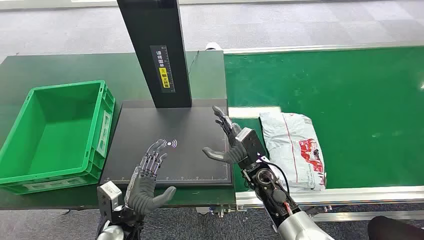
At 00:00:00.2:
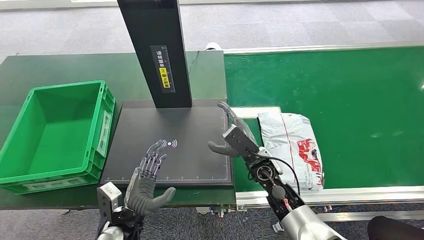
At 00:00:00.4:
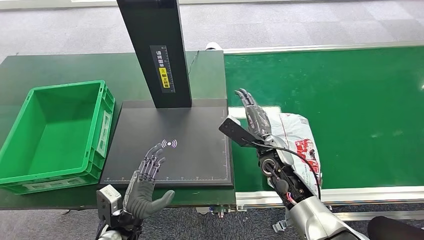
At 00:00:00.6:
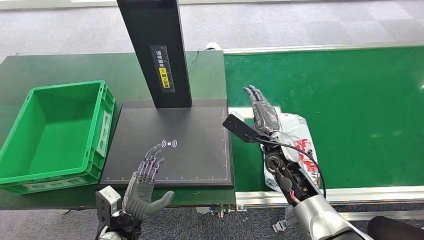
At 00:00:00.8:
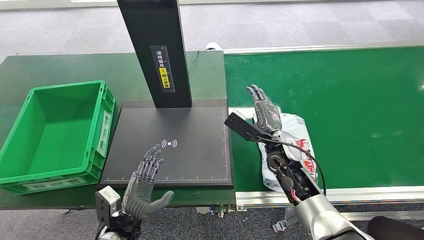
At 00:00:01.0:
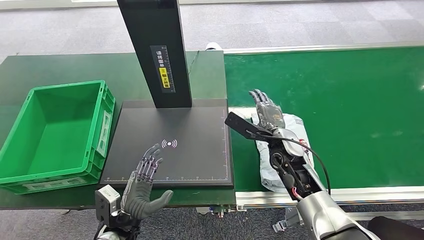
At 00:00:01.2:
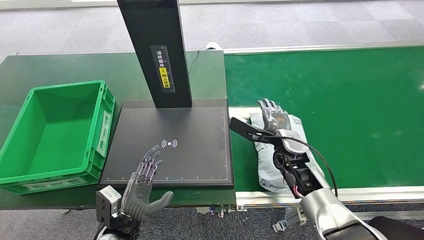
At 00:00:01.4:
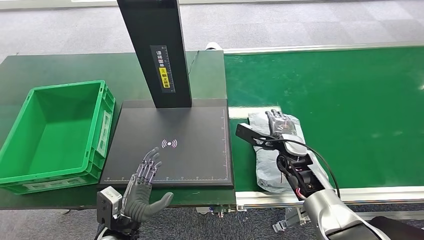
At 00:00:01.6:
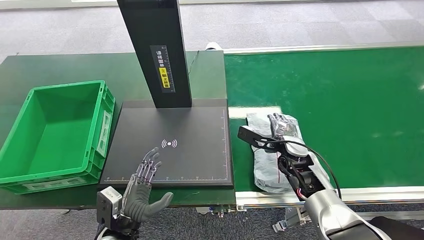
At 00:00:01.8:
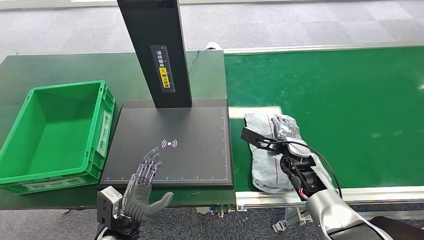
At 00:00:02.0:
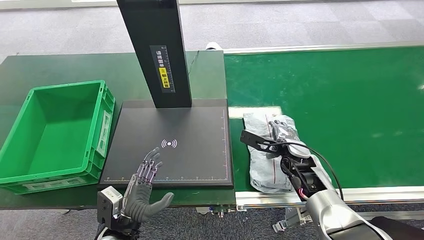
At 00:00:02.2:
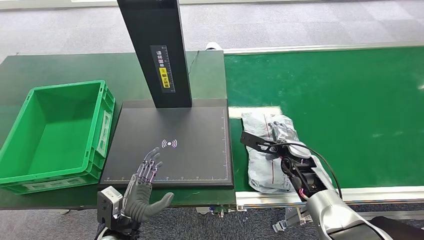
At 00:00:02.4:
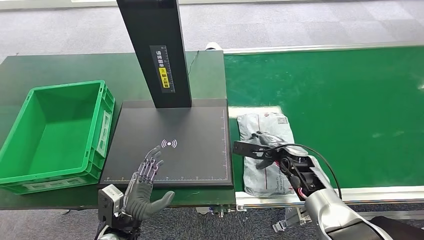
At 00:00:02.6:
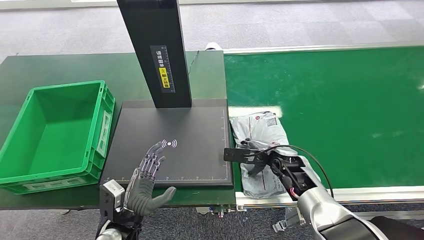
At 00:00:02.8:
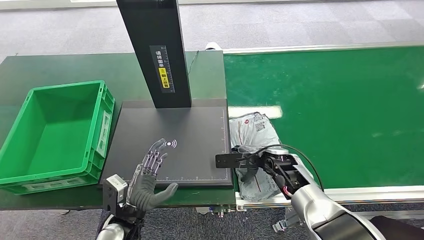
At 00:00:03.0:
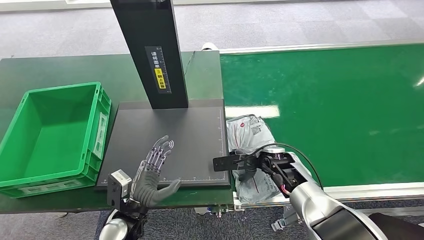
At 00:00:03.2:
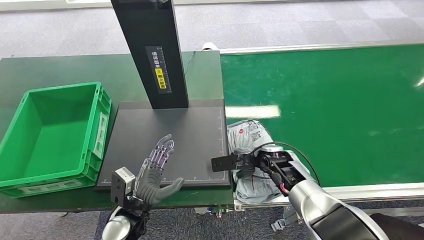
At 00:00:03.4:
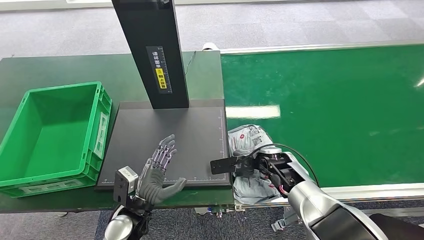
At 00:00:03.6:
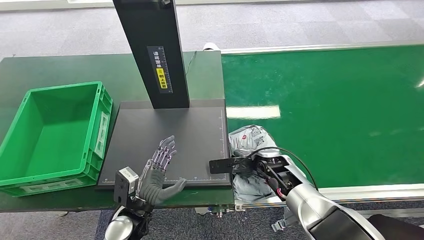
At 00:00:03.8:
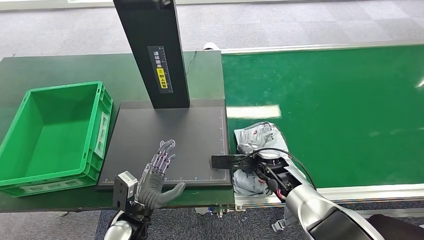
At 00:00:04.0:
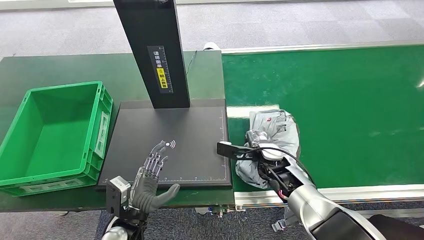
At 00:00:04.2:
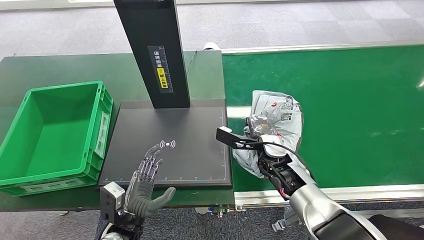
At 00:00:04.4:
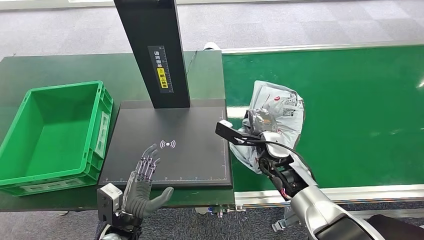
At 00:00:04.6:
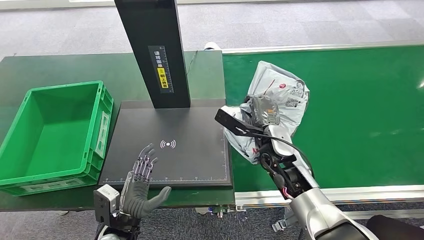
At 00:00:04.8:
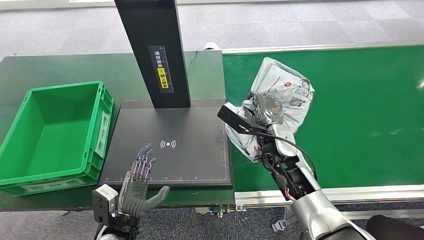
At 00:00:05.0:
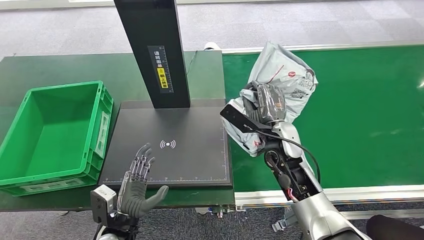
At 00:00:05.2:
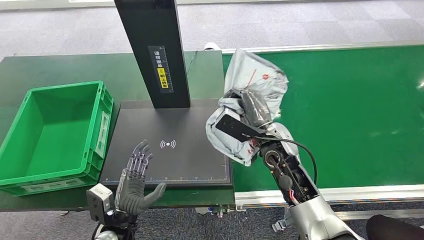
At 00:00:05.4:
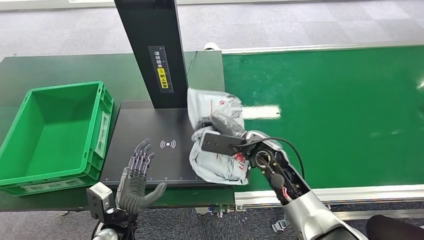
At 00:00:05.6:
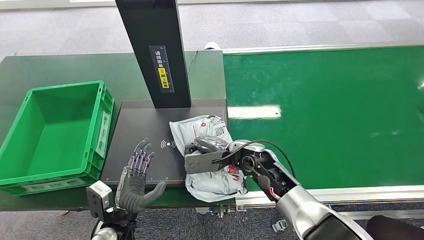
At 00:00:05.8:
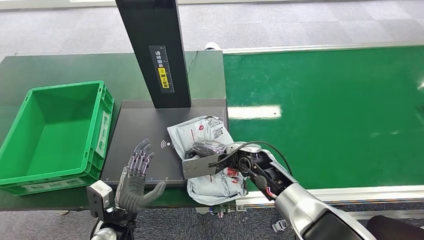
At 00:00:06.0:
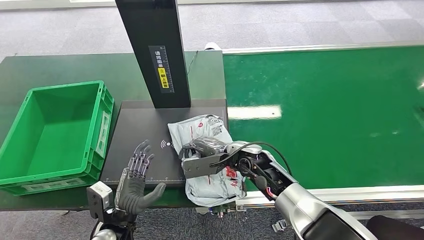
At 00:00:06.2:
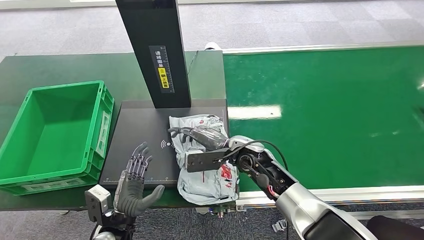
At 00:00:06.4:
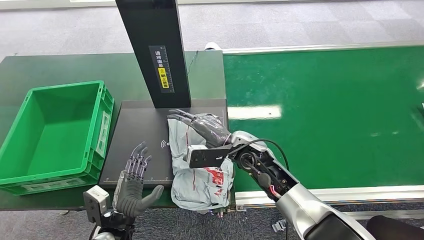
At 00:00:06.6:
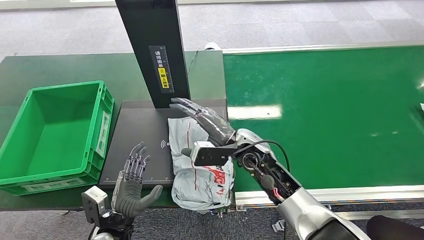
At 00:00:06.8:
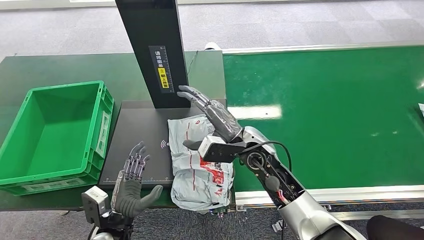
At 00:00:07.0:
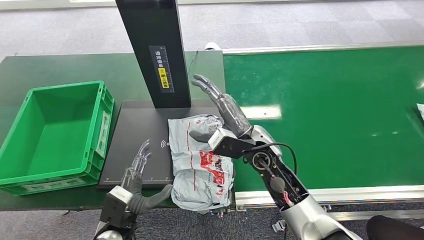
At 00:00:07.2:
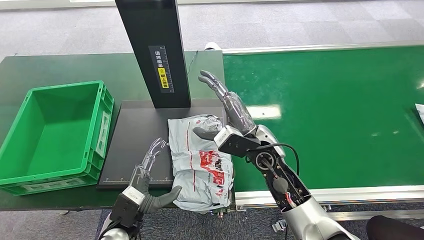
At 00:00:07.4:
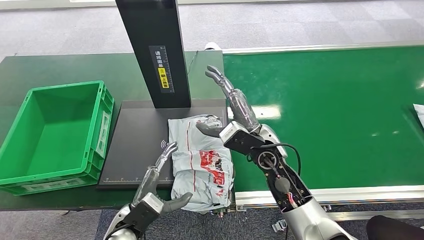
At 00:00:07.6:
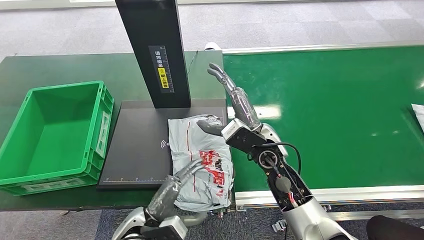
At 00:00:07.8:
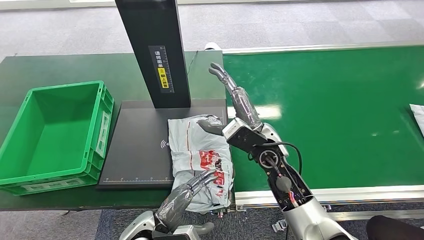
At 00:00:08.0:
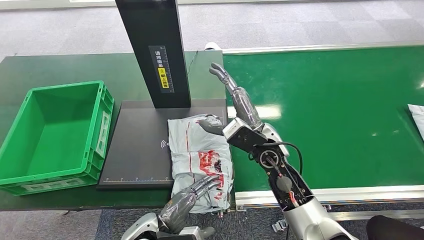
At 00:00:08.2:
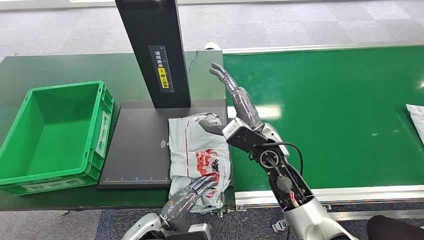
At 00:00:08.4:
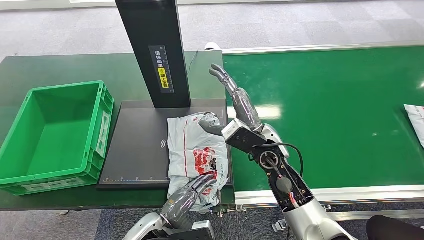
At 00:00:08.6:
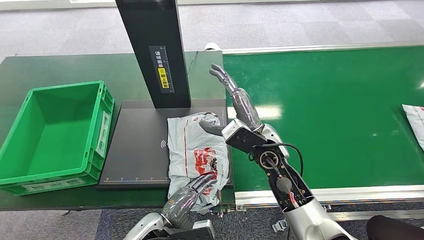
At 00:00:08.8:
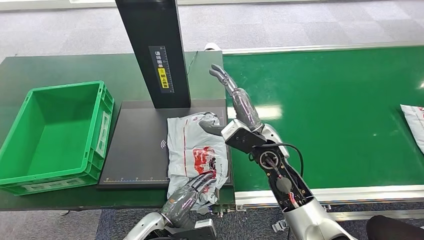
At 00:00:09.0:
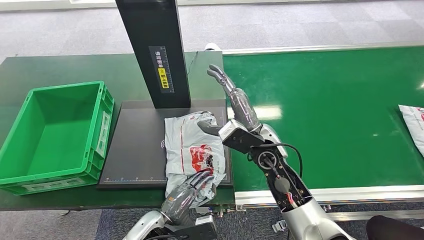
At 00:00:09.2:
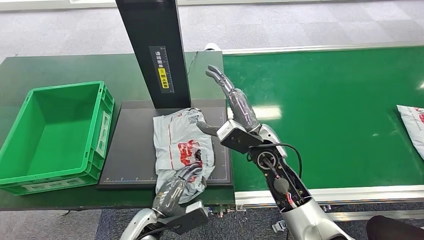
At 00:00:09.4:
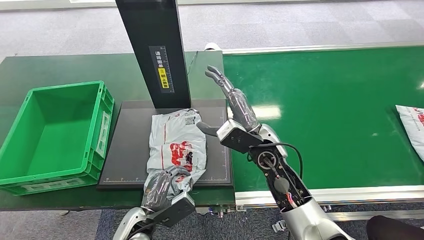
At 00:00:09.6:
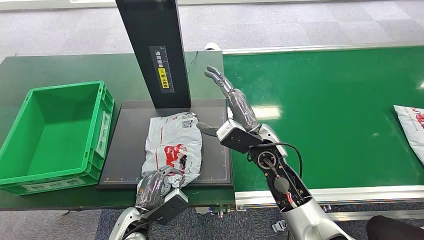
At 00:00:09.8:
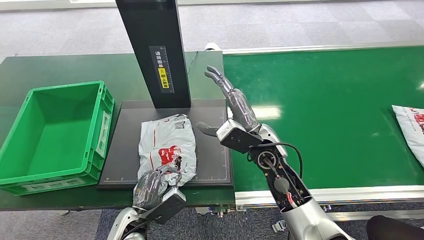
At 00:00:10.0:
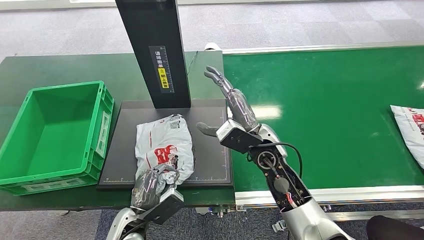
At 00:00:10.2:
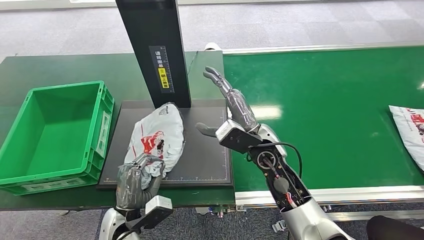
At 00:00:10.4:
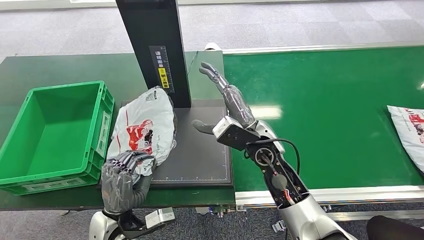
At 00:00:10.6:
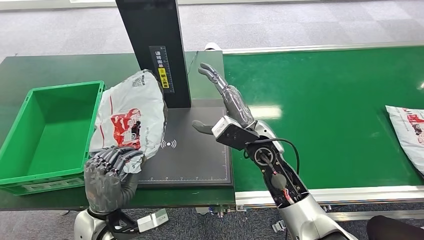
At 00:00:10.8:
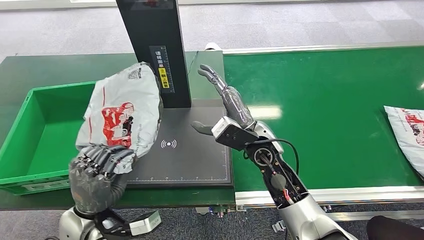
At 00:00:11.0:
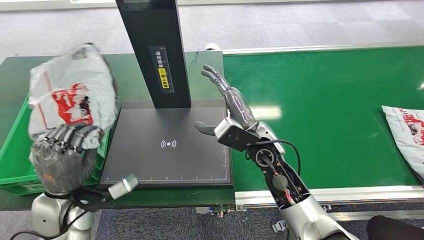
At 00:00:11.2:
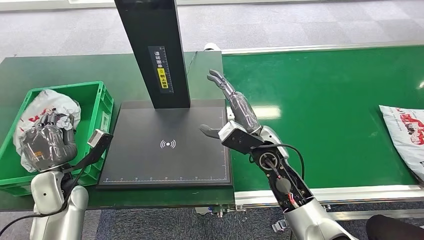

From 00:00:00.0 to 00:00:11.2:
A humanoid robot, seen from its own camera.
Step, from 00:00:00.0 to 00:00:04.2: Pick up the package from the conveyor belt.
Step, from 00:00:04.4 to 00:00:07.2: Place the package onto the inbound machine.
Step, from 00:00:07.4 to 00:00:10.4: Pick up the package from the inbound machine.
From 00:00:03.2 to 00:00:04.8: The right hand moves upward, about 5 cm.
From 00:00:04.8 to 00:00:06.4: The right hand heads to the left, covering about 5 cm.
From 00:00:06.4 to 00:00:08.0: The left hand moves to the right, approximately 5 cm.
From 00:00:09.6 to 00:00:11.2: The left hand shifts about 20 cm to the left, upward and forward.

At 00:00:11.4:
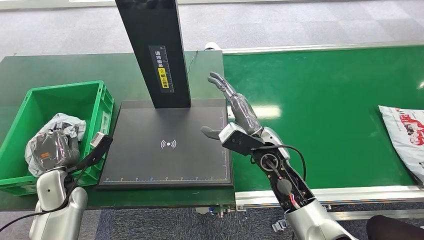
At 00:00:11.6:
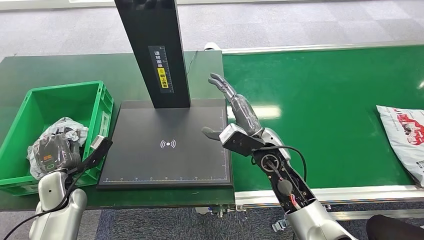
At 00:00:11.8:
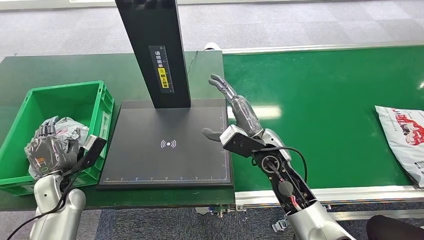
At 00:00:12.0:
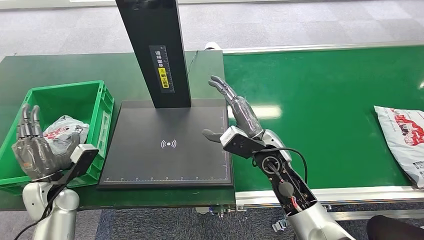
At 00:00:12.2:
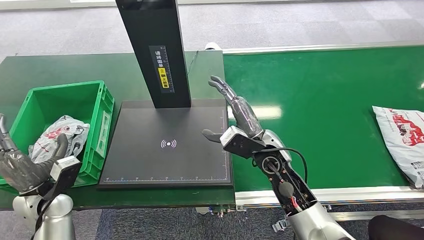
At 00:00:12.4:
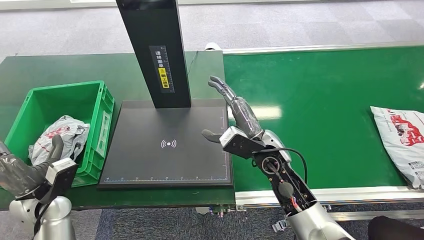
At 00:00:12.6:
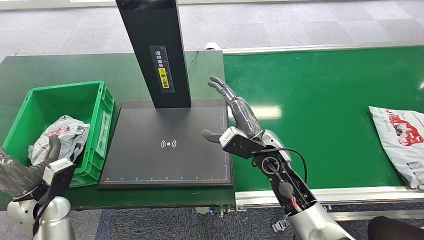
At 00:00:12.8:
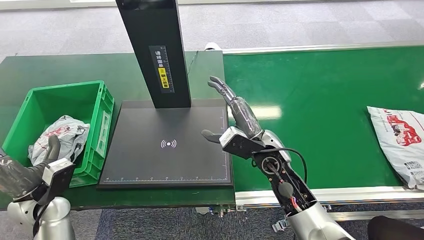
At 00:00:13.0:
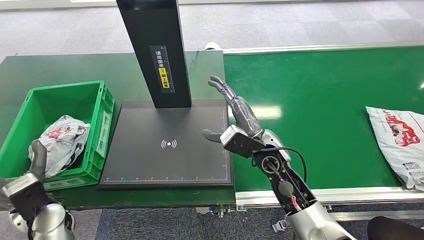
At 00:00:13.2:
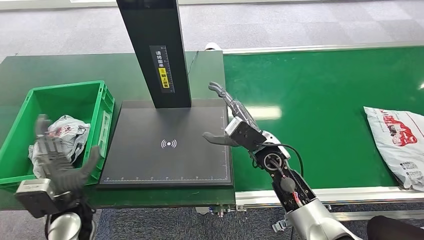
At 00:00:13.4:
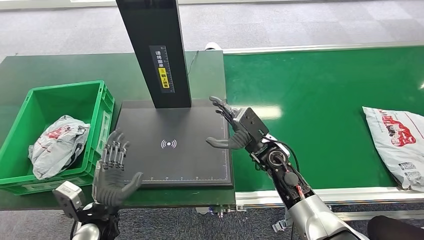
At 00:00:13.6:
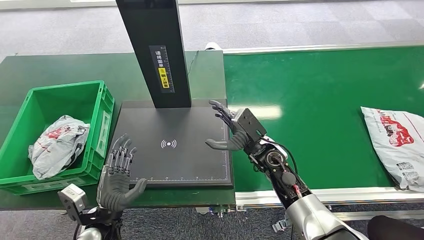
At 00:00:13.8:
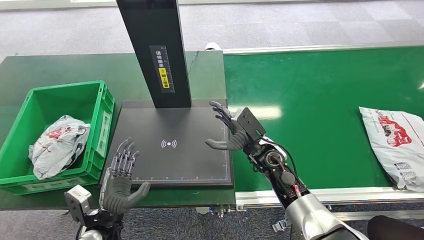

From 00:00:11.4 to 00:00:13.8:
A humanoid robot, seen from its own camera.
Step, from 00:00:11.4 to 00:00:13.8: Place the package into the parcel locker.
From 00:00:12.6 to 00:00:13.8: The left hand is displaced to the right, downward and backward by about 15 cm. Meanwhile the right hand heads downward, covering about 5 cm.
